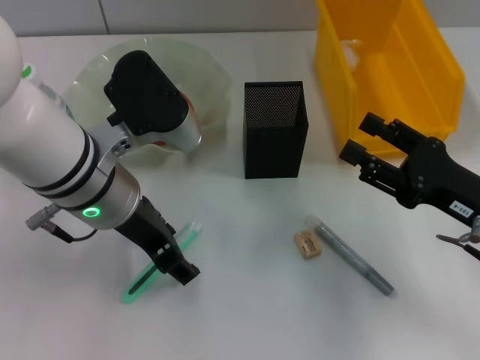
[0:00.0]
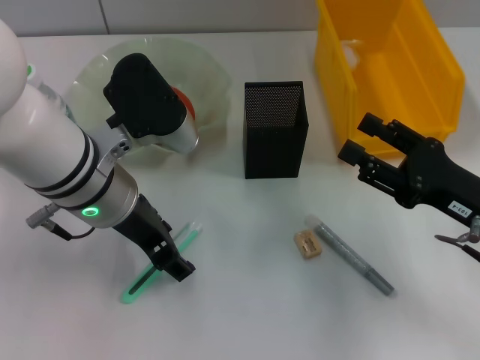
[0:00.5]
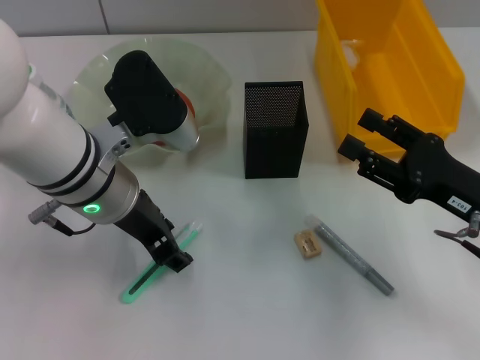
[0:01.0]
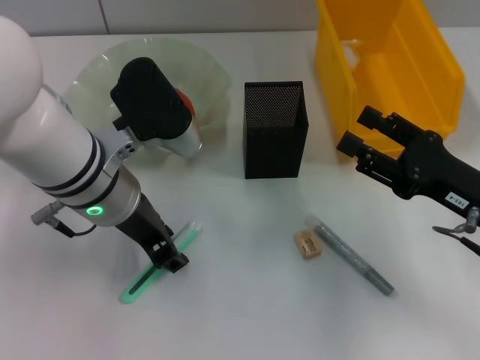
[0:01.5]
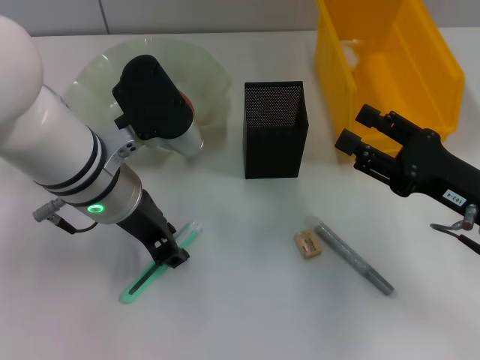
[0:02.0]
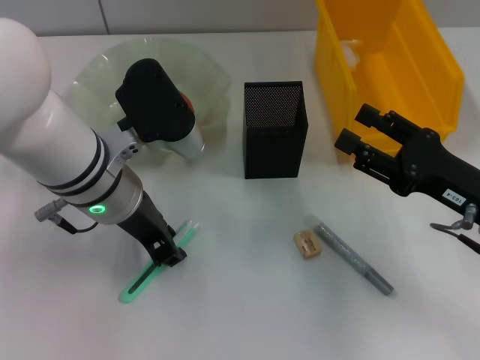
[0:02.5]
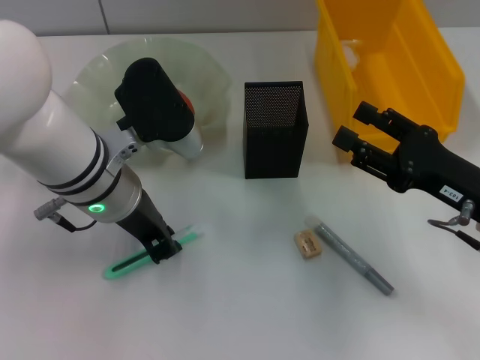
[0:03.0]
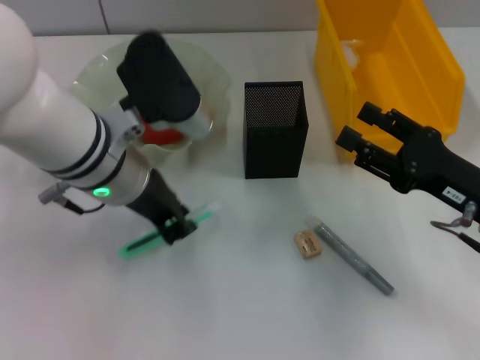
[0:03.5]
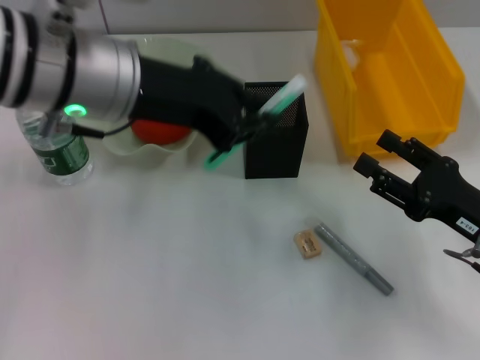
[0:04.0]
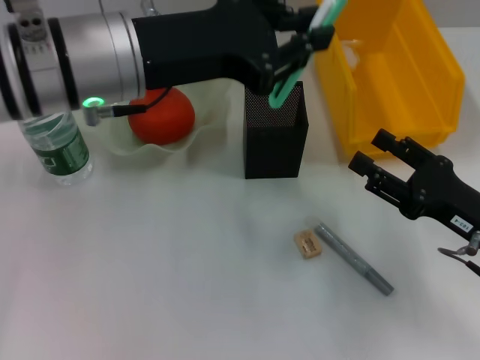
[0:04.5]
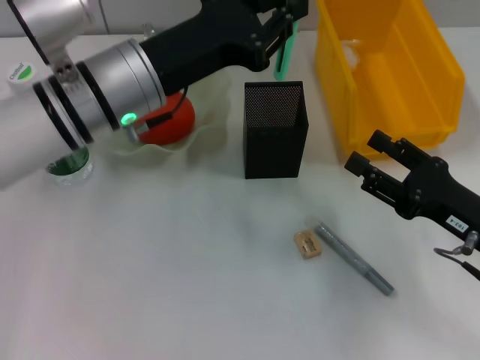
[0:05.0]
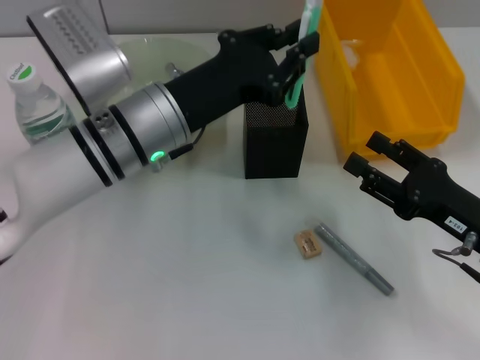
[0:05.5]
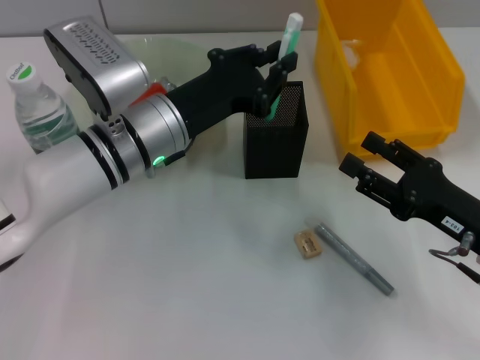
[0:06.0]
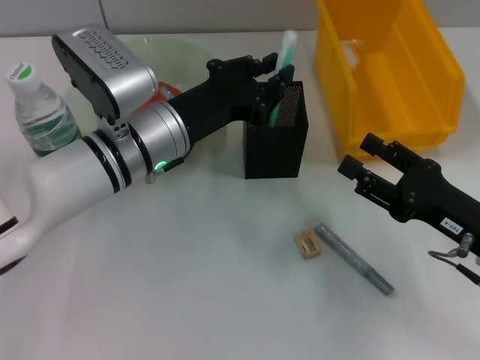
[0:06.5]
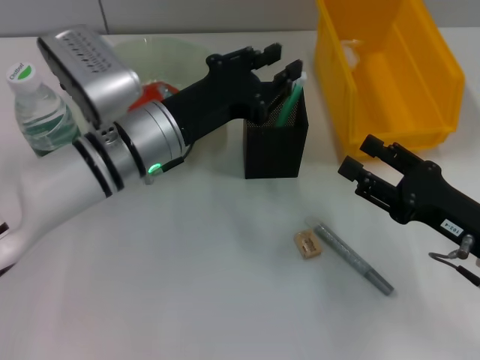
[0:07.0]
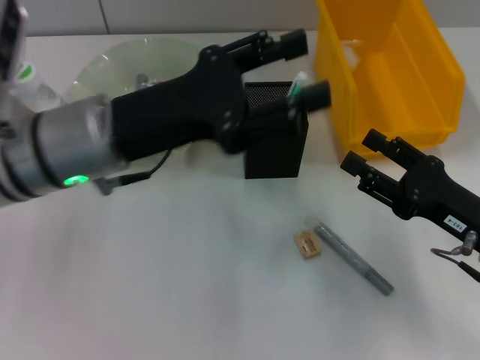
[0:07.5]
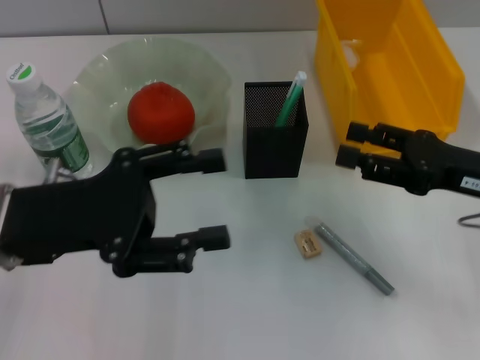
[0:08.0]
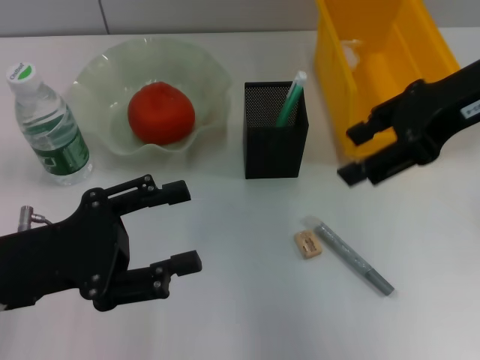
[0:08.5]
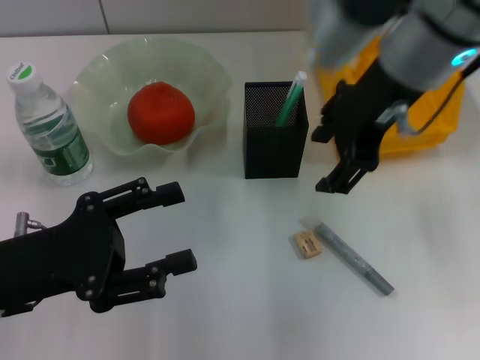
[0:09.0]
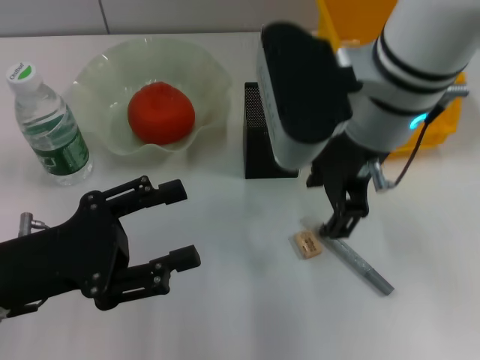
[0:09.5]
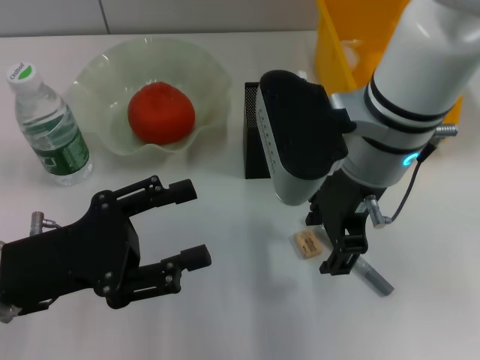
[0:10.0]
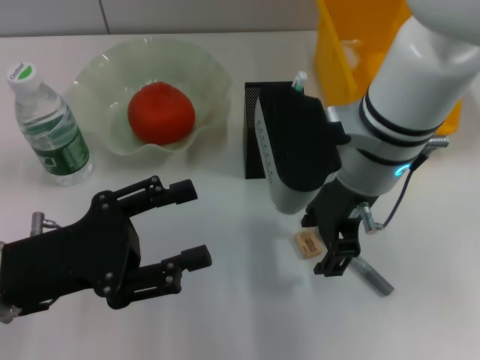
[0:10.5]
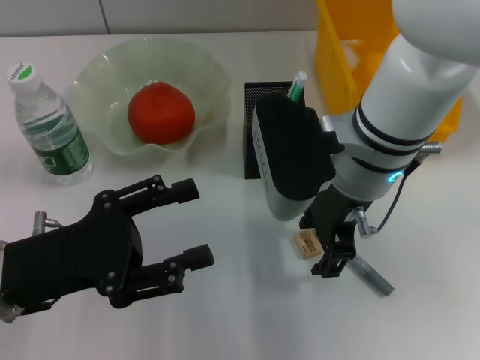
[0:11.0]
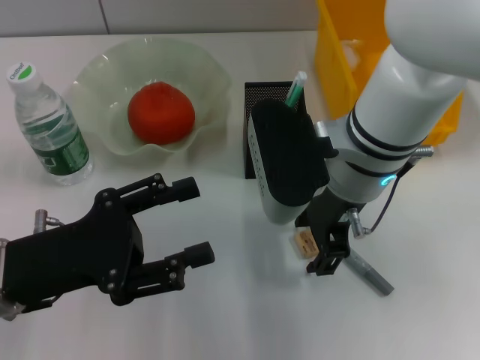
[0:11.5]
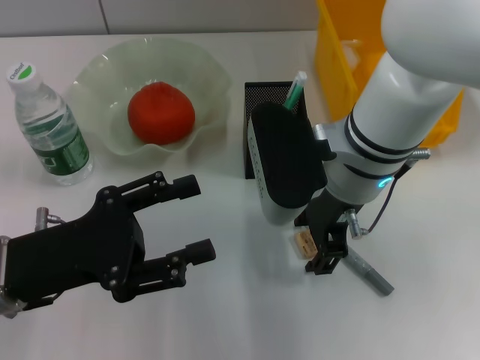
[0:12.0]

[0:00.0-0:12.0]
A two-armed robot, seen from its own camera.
Step, 0:00.0 to 0:02.5: Grab the blue utility knife with the left hand.
Step, 0:03.5 to 0:07.0: Place the blue utility knife into the pen holder with the left hand.
0:00.0 to 0:02.0: The left gripper closes up.
0:02.0 to 0:04.0: The left gripper is displaced upward by about 10 cm.
0:04.0 to 0:06.0: The left gripper is displaced downward by roughly 15 cm.
0:06.0 to 0:08.0: The right gripper shifts roughly 5 cm upward; the left gripper goes about 15 cm to the left and backward, and opens up.
0:08.0 to 0:10.0: The right gripper goes some 20 cm to the left and upward; the left gripper changes place by approximately 5 cm.
0:10.0 to 0:12.0: The grippers move only a little.

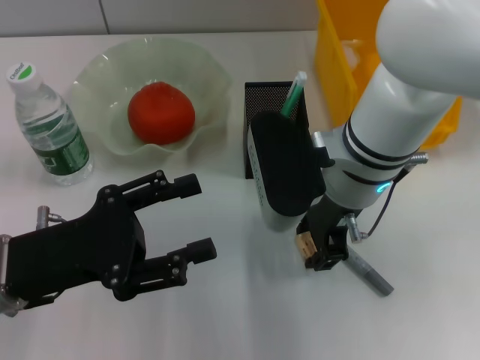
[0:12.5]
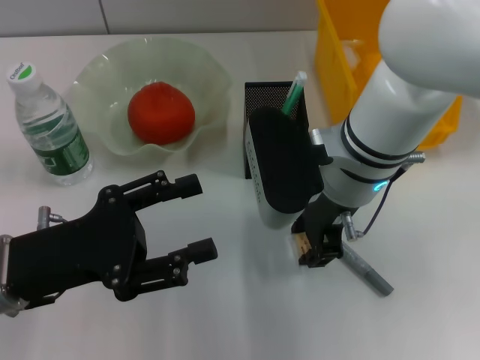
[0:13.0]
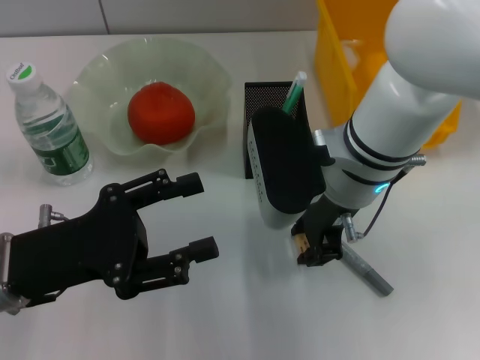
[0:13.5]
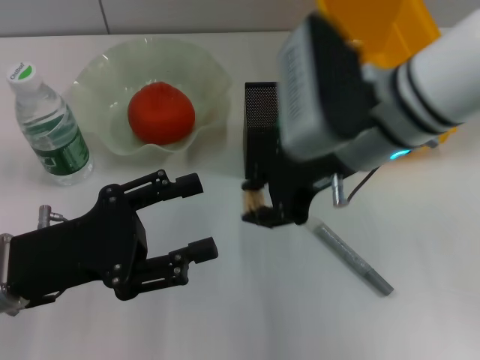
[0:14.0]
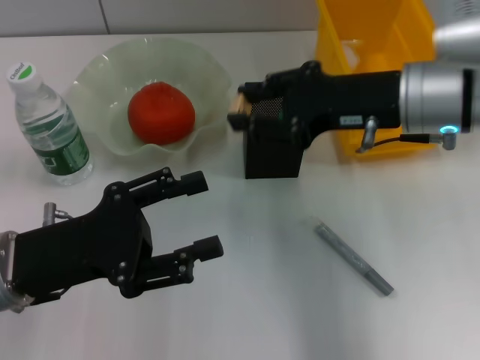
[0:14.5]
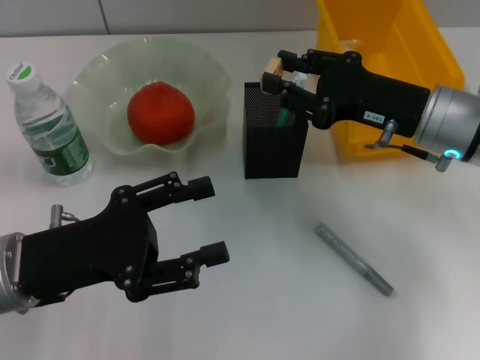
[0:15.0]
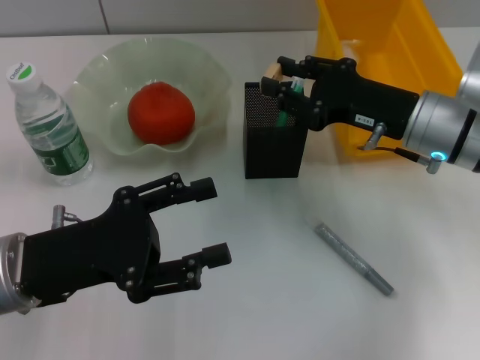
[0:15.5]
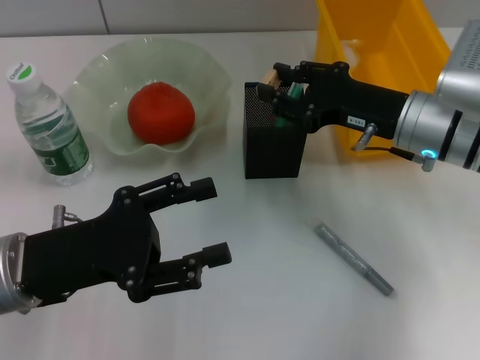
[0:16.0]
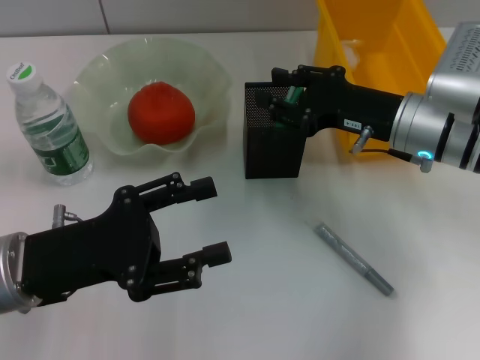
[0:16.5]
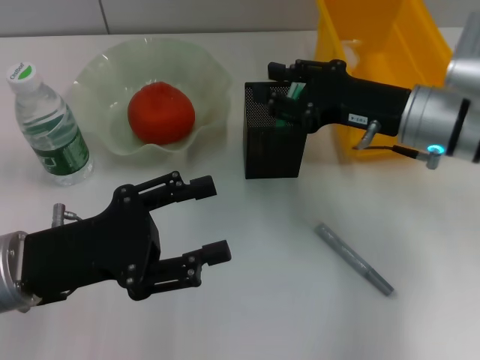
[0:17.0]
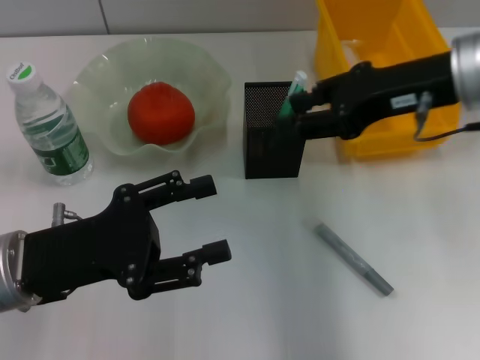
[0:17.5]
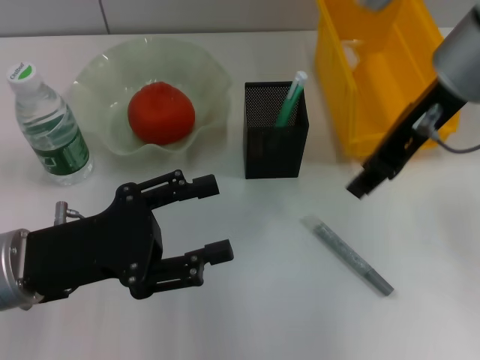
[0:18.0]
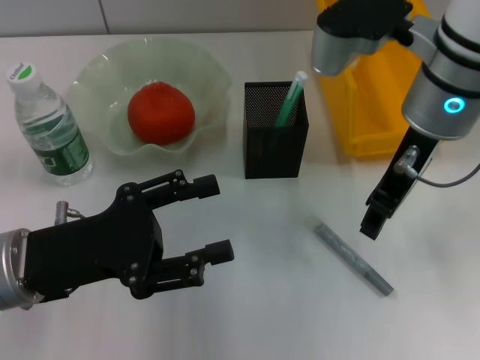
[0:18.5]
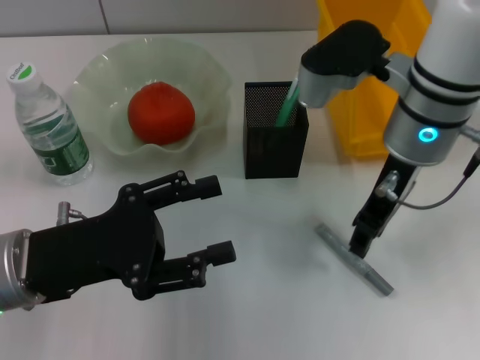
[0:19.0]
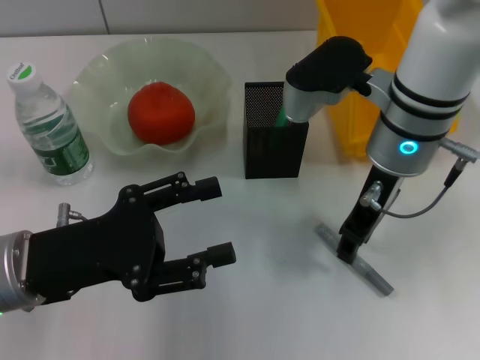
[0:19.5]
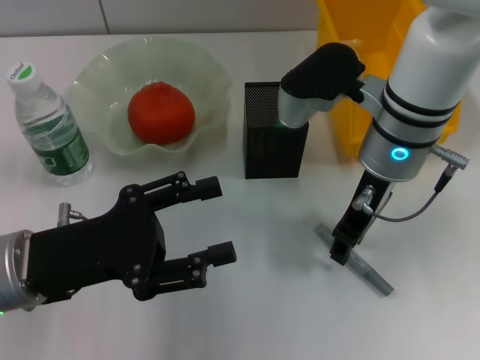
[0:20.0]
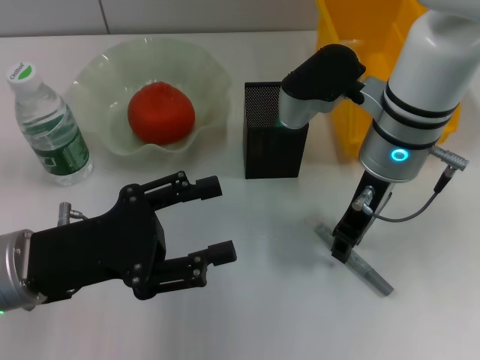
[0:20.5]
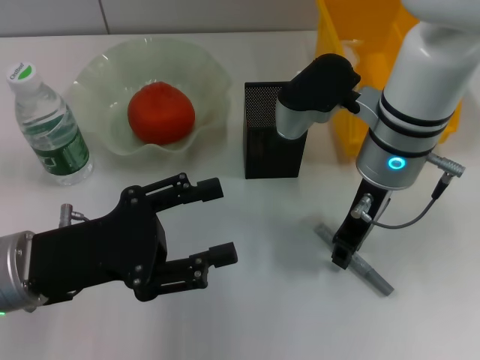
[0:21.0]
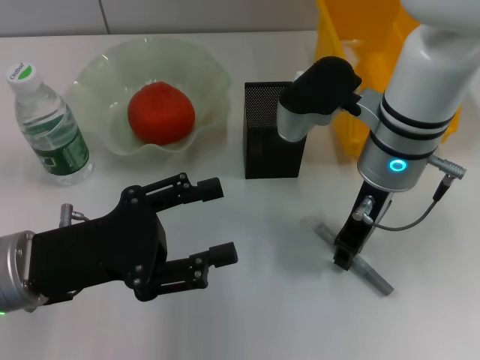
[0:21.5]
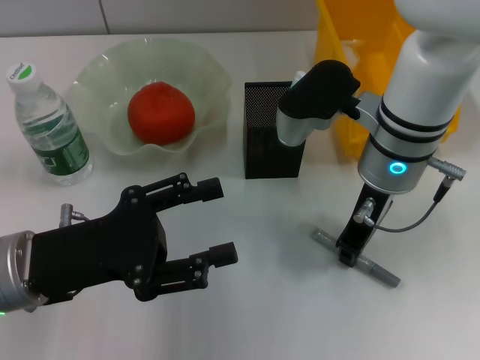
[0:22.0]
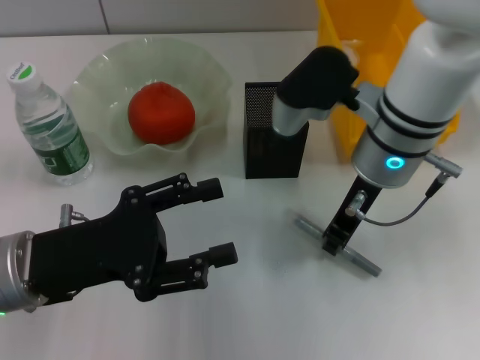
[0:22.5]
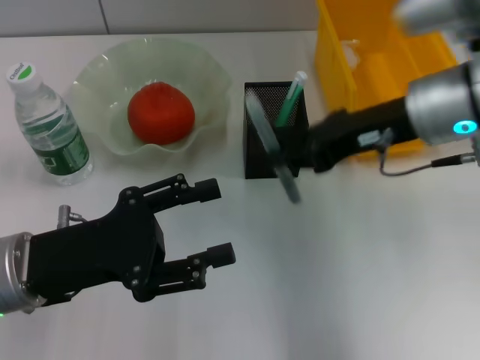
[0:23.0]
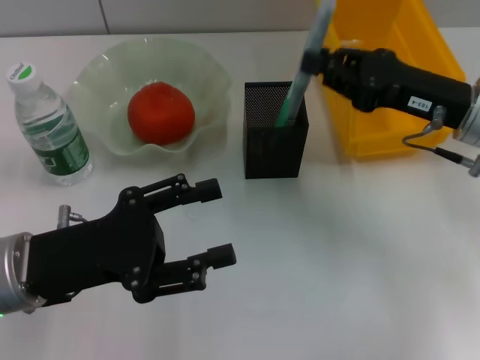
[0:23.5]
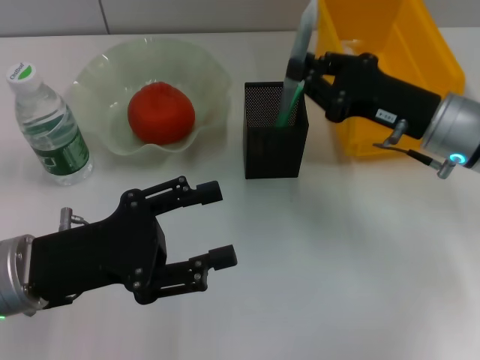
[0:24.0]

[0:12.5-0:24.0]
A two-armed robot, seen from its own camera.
Step, 0:14.0 to 0:16.5: Put the eraser into the pen holder with the right hand.
Step, 0:17.0 to 0:22.0: Grab the gray glue with the right hand.
0:12.5 to 0:14.5: The right gripper heads to the right, covering about 10 cm, and closes its fingers.
0:14.5 to 0:16.5: The right gripper shifts some 5 cm downward.
0:16.5 to 0:18.5: The right gripper is displaced upward and to the left by approximately 15 cm.
0:18.5 to 0:20.0: The right gripper goes approximately 5 cm downward.
0:20.0 to 0:22.0: Neither gripper changes place.
0:22.0 to 0:24.0: The right gripper heads to the right, covering some 10 cm.

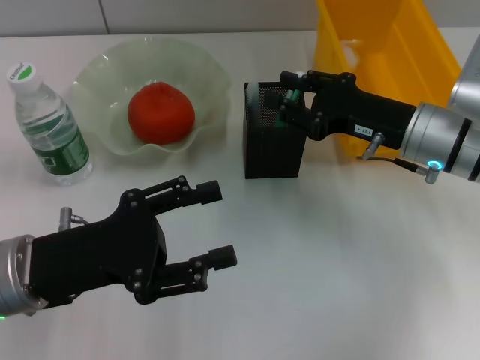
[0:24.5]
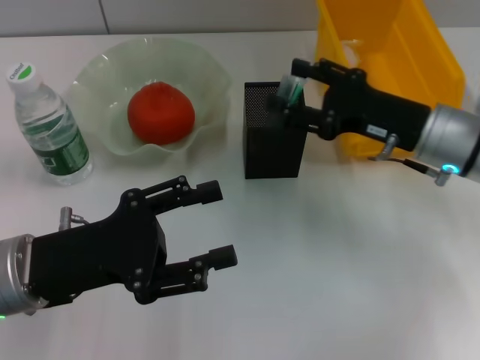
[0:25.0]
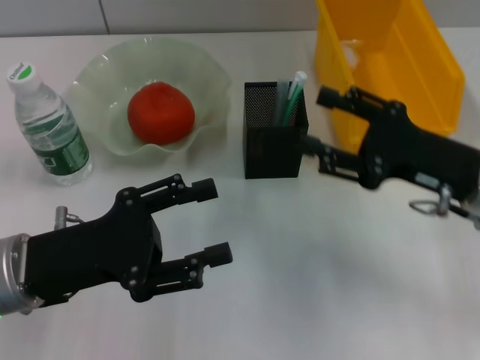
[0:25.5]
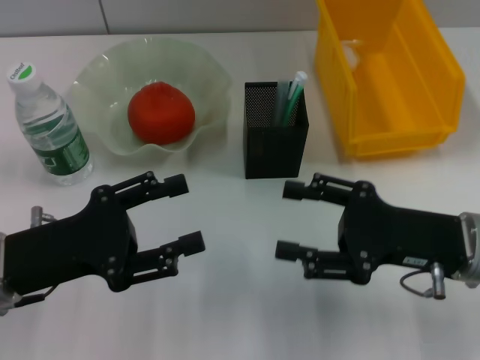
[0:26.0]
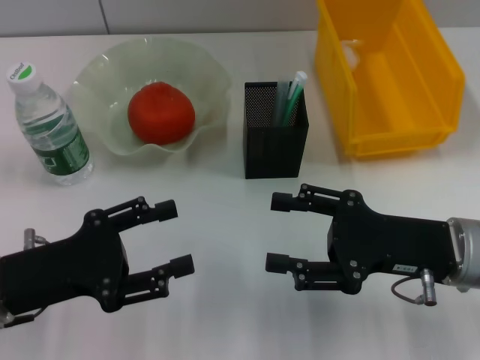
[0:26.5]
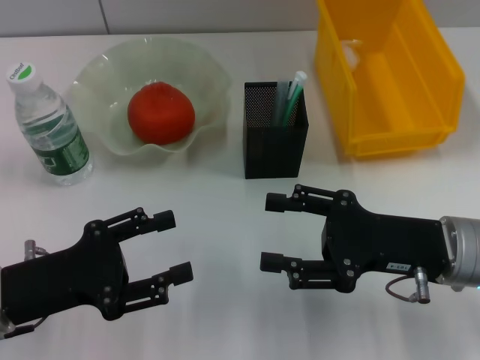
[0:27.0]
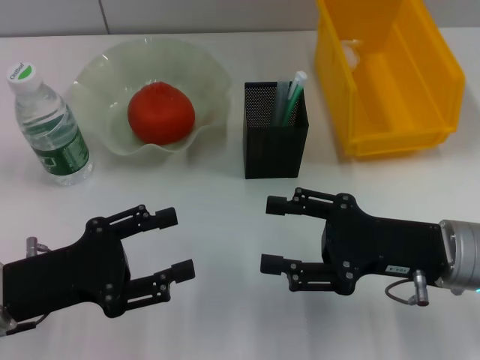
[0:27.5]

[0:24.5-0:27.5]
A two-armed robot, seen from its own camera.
0:24.5 to 0:26.0: The right gripper goes about 10 cm backward, and opens its fingers.
0:26.0 to 0:27.5: There are only small adjustments of the grippers.
